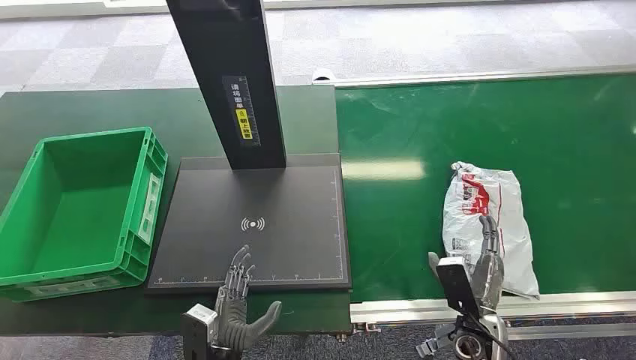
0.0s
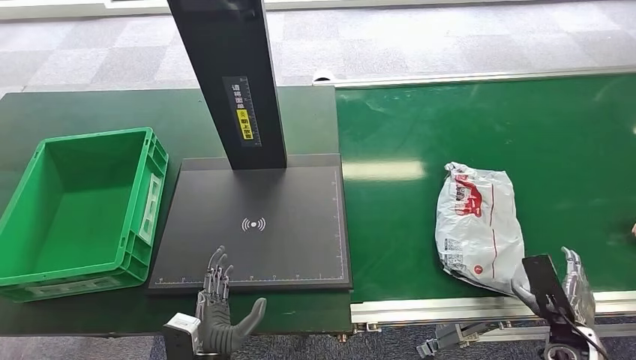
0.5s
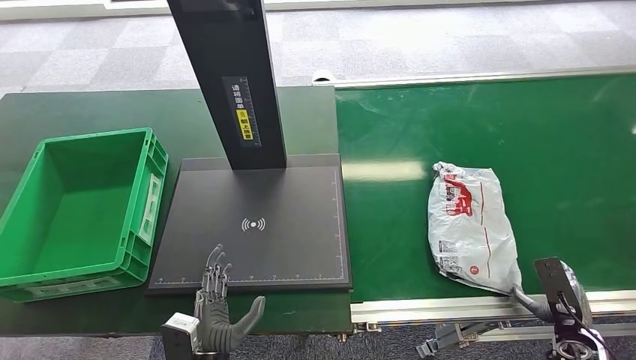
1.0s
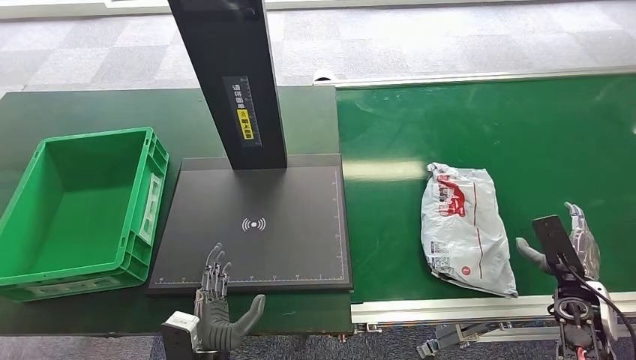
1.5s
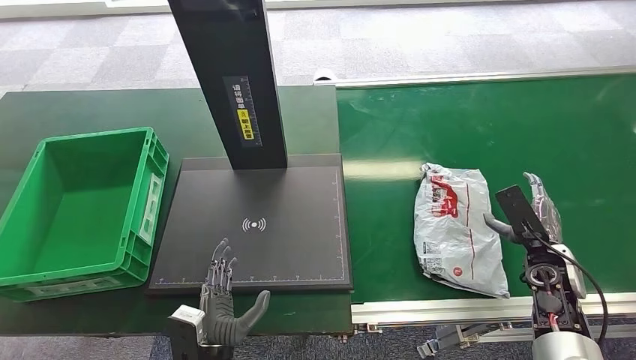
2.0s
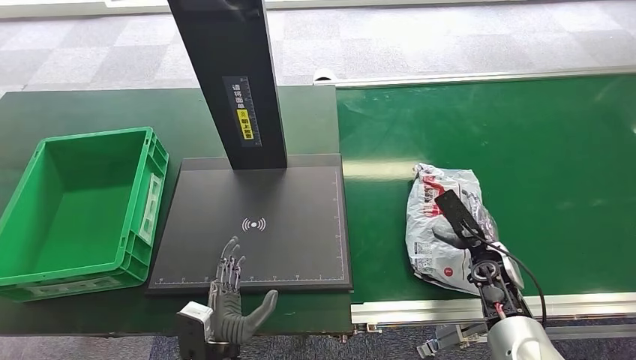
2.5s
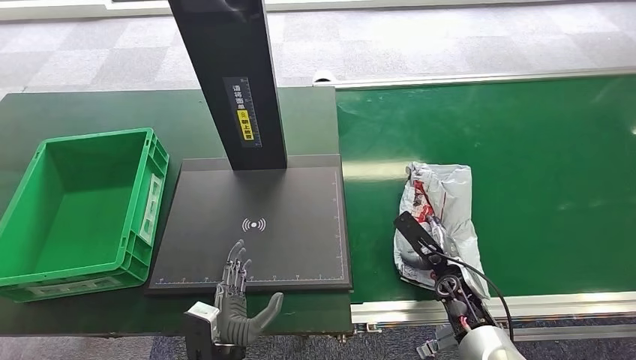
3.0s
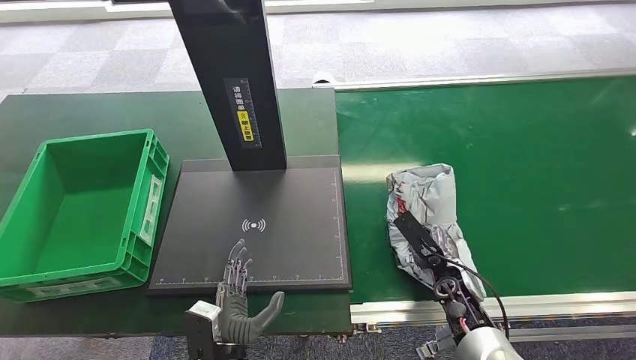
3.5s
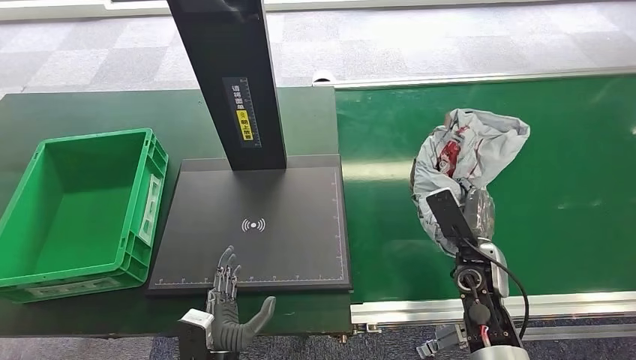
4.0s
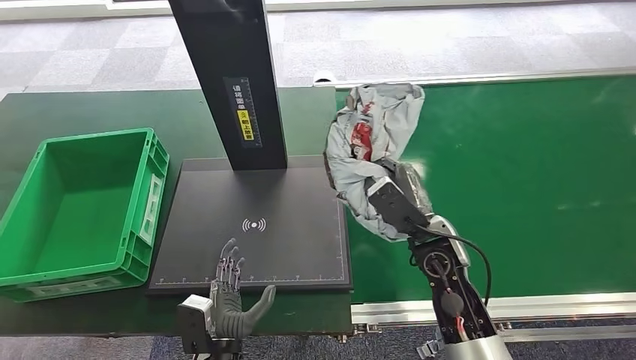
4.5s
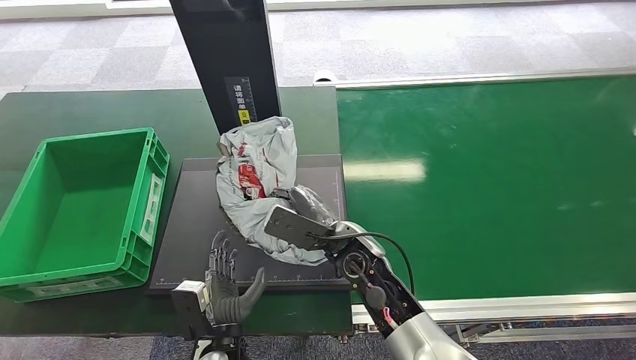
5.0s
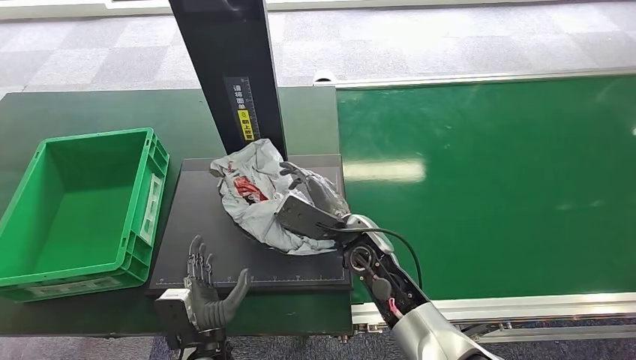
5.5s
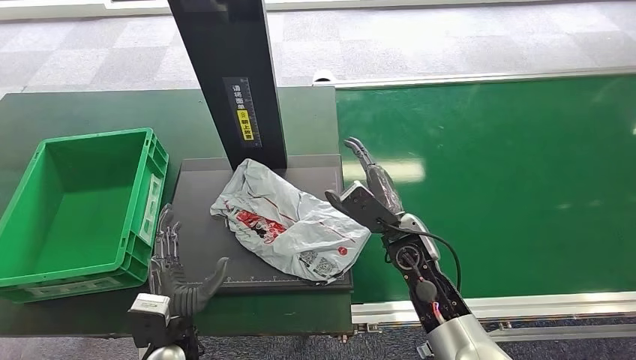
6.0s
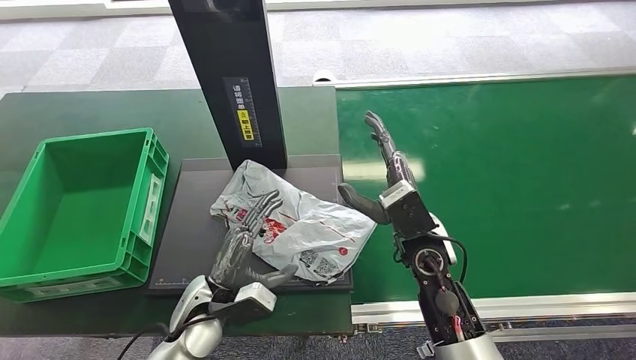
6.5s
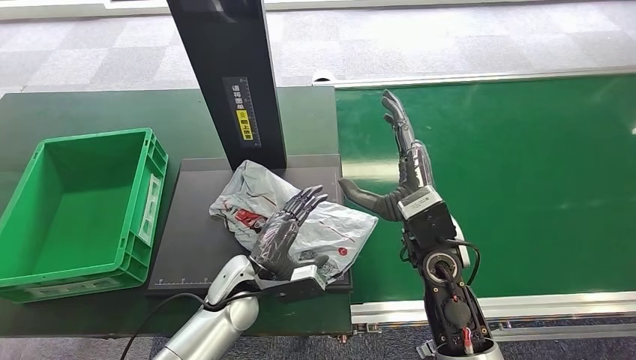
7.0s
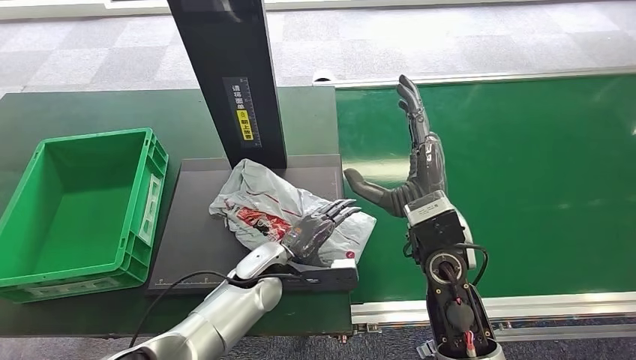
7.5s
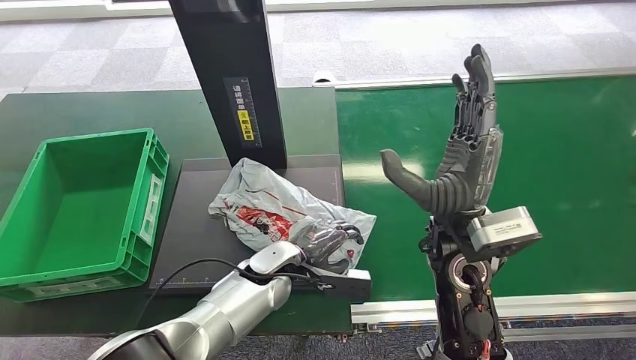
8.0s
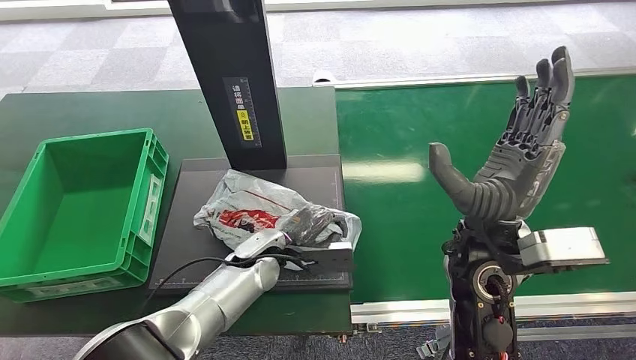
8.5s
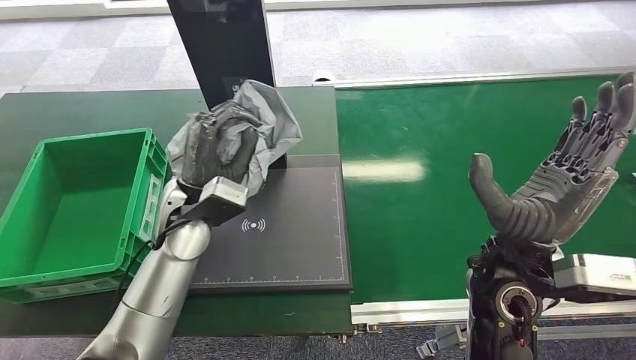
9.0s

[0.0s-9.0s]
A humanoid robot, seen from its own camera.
Step, 0.0s to 4.0s: Pick up the package from the conveyor belt.
Step, 4.5s to 7.5s: Place the package onto the inbound machine.
Step, 8.0s to 9.0s: Pick up the package from the inbound machine.
2.0s to 4.5s: The right hand moves to the left, some 20 cm.
4.5s to 7.0s: The left hand travels forward and upward by approximately 15 cm. The right hand is displaced upward by some 5 cm, and reaches about 15 cm to the left, then returns.

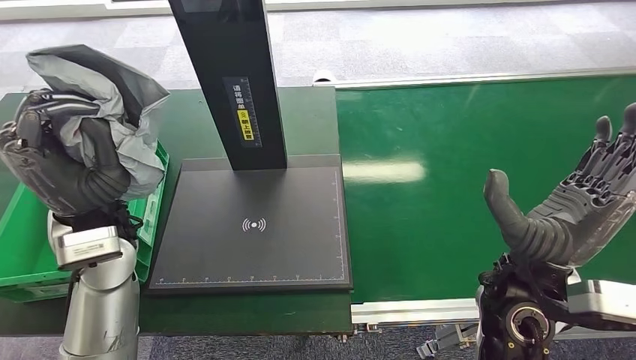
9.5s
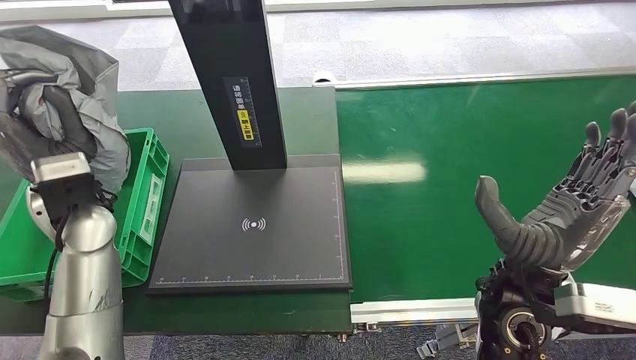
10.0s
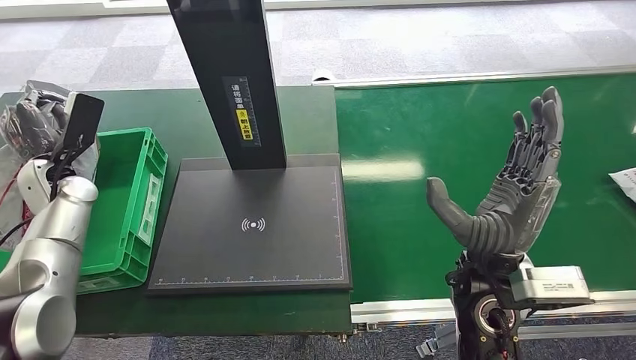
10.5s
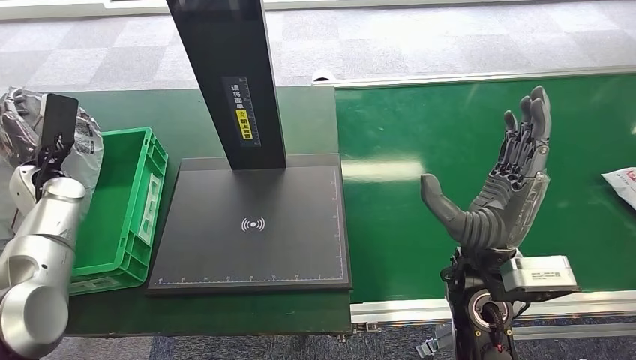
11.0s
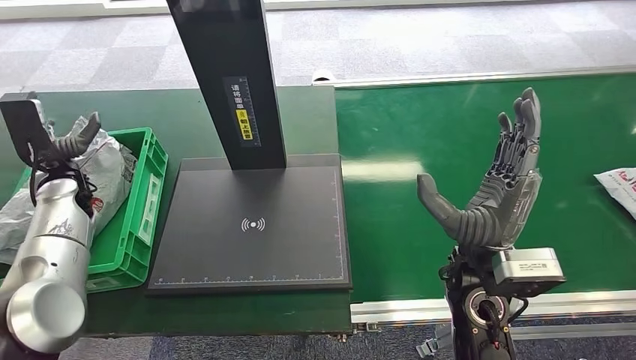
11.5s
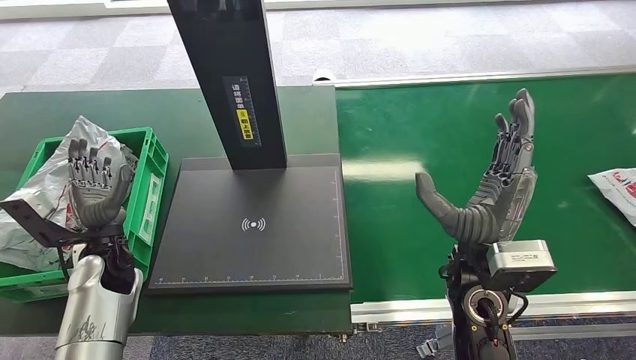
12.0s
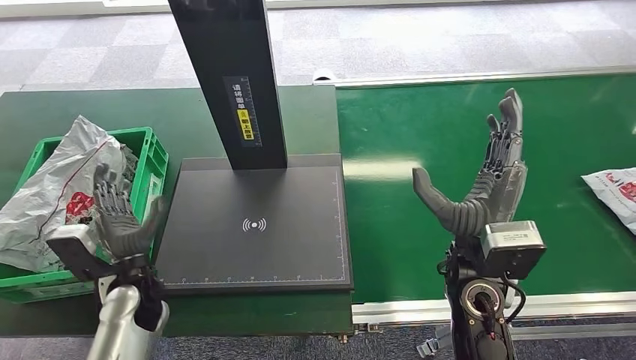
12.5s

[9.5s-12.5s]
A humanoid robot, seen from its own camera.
Step, 9.5s to 12.5s: Place the package into the parcel locker.
